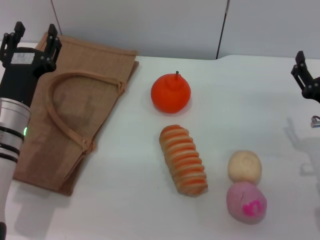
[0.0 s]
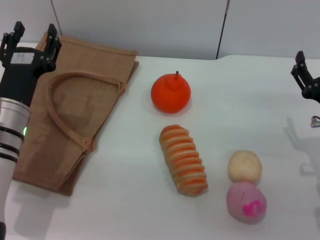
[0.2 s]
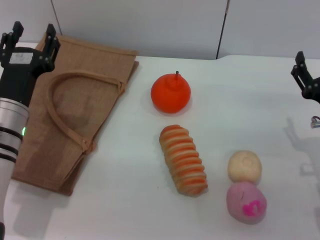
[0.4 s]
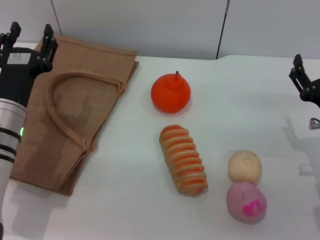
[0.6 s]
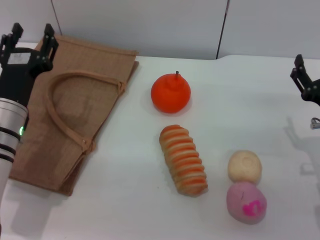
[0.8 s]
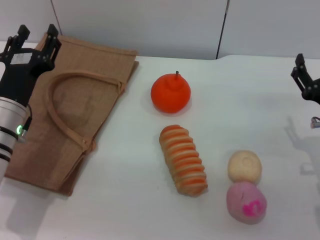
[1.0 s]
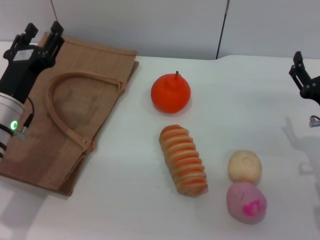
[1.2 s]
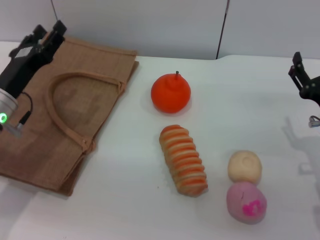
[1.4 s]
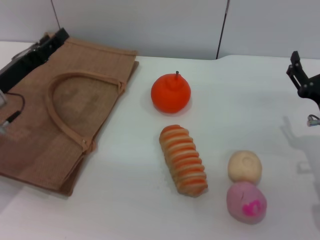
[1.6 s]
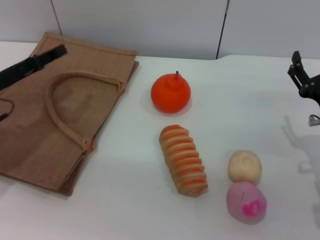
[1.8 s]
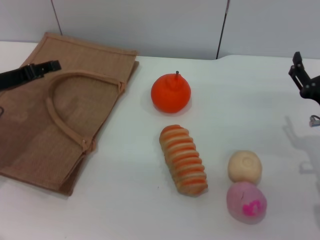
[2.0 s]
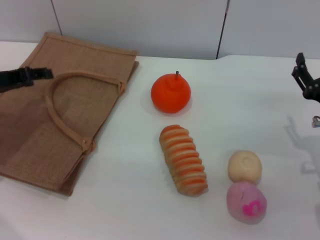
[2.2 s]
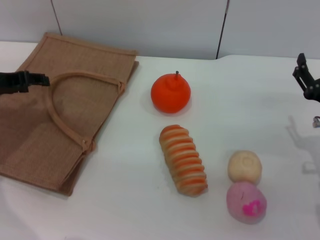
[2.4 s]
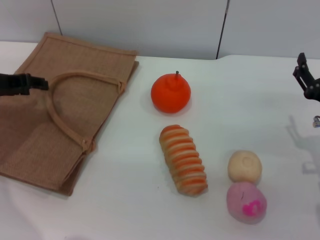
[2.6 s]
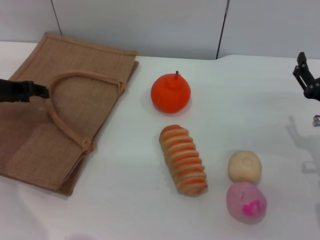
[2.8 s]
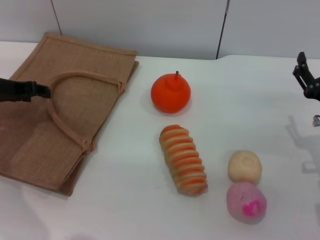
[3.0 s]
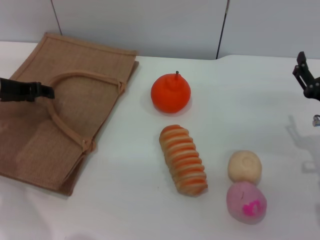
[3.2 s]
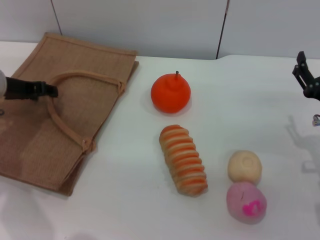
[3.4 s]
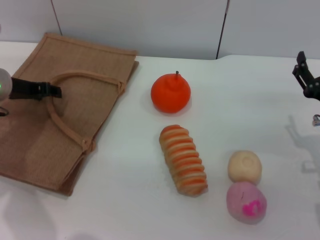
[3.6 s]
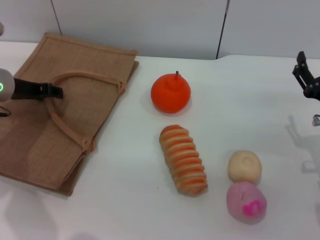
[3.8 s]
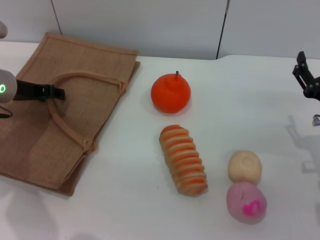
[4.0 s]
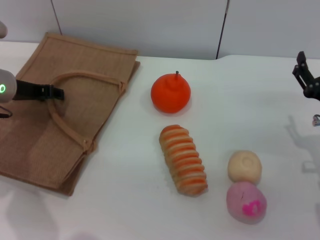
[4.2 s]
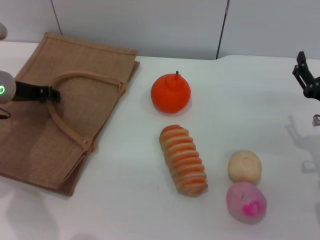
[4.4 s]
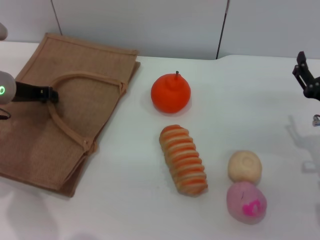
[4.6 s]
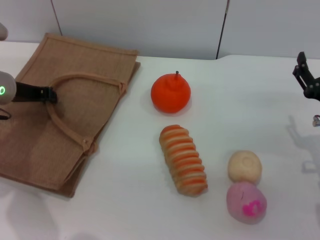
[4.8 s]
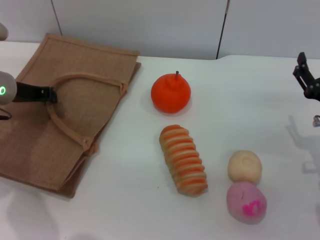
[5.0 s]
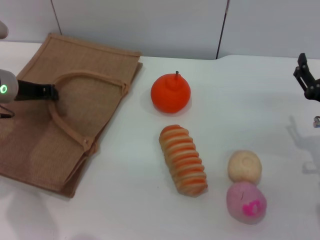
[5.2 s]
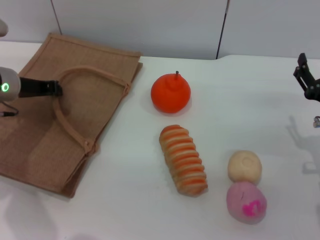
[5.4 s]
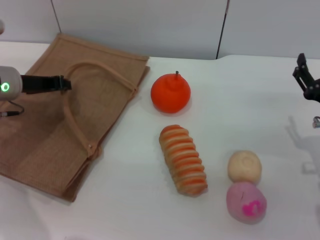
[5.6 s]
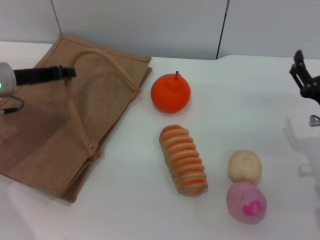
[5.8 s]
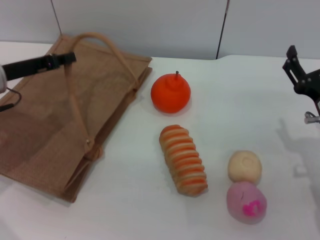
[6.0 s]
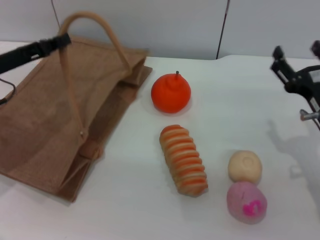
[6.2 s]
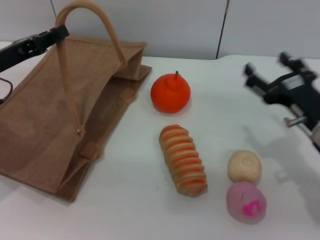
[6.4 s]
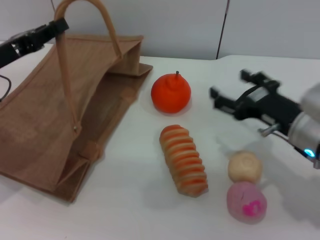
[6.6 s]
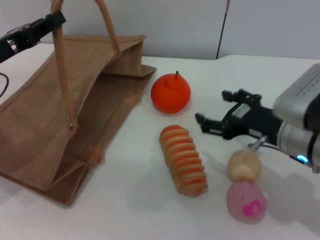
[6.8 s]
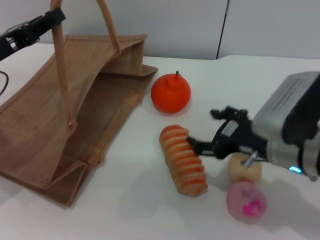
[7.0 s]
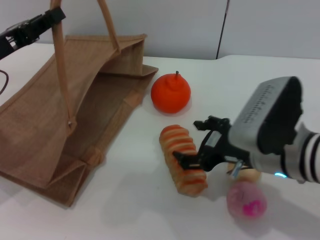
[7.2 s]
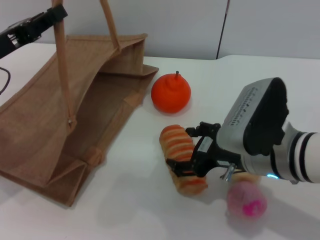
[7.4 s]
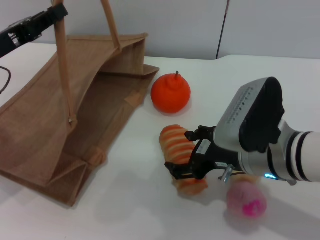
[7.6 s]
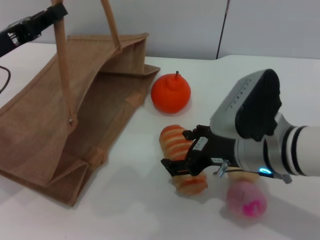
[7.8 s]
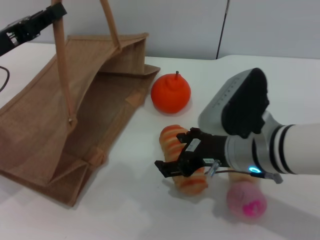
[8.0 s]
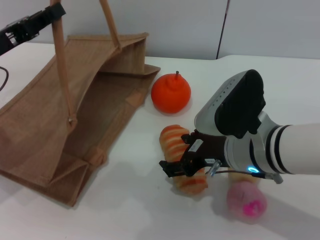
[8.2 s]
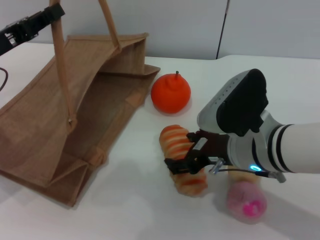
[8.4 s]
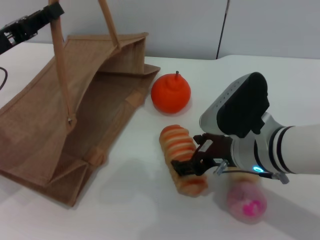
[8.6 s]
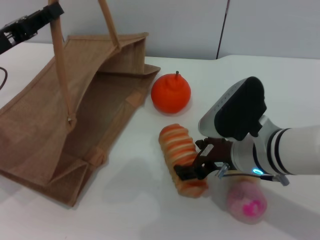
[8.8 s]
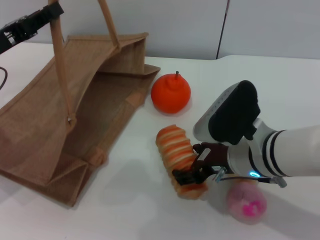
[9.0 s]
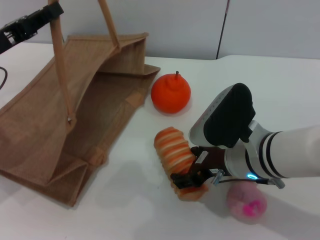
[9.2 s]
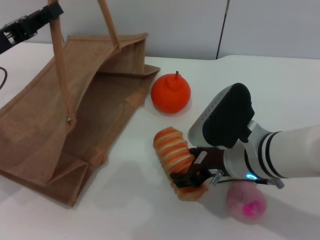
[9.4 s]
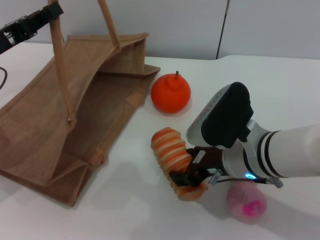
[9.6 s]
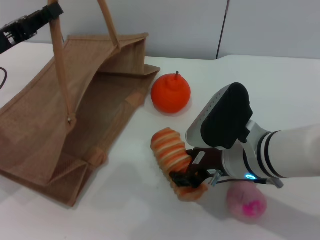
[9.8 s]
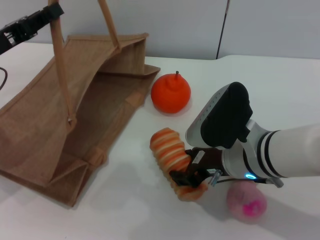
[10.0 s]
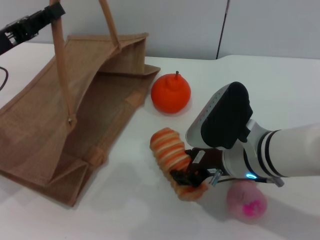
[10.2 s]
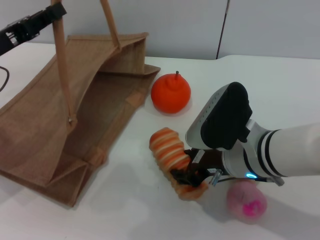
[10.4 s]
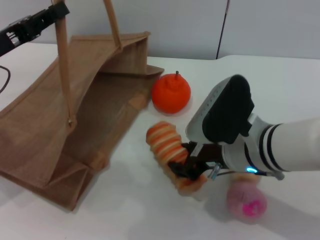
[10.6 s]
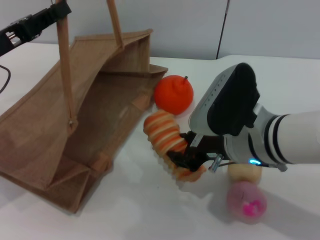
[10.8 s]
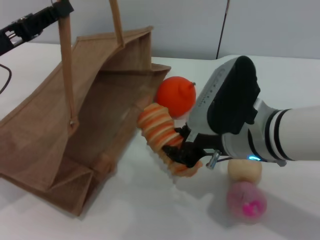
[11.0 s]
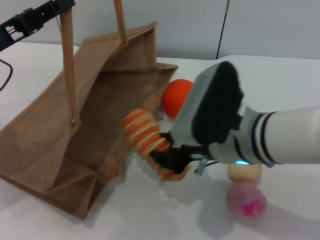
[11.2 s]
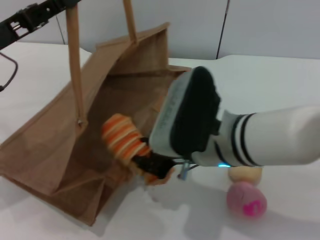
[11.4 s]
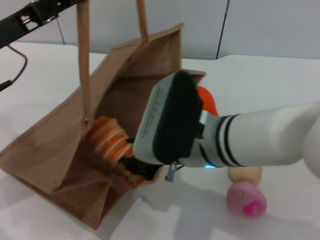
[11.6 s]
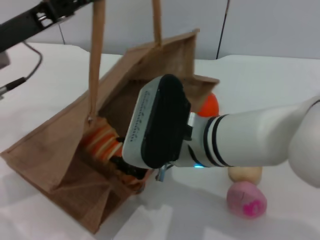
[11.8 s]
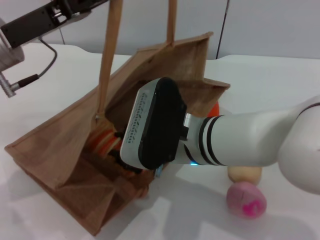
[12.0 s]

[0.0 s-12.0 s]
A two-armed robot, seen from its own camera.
Task of the whole recording: pick up the bread from the table and place it in the brown handbag.
Step, 0.0 to 5.8 s: Lift the woven bag with the left gripper to open it.
Step, 6.0 to 11.0 s: Pick up the bread with the right gripper.
0.0 to 1.6 s: The left gripper heads to the left, covering some 5 cm.
1.6 to 3.0 s: The left gripper goes approximately 5 cm forward.
3.0 to 4.4 s: The grippers stay close to where they were, moving slightly.
4.4 to 6.0 s: The left gripper closes up.
6.0 to 7.6 s: The right gripper is displaced to the left and upward by about 10 cm.
7.6 to 9.0 s: The grippers make only small movements.
9.0 to 10.4 s: The right gripper closes up.
10.4 to 12.0 s: The left gripper heads to the right, covering some 5 cm, while the right gripper moves to the left, roughly 10 cm, and closes up.

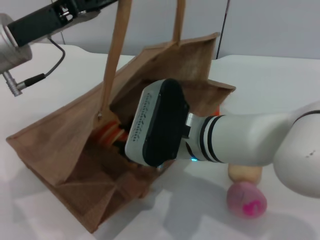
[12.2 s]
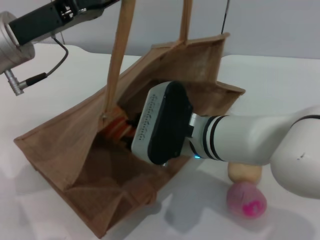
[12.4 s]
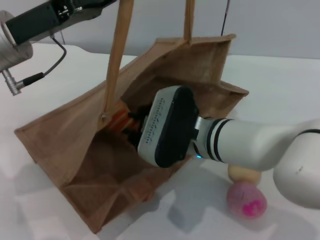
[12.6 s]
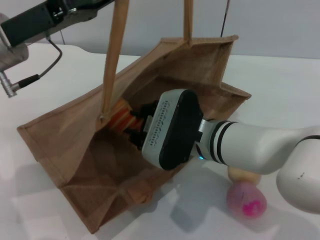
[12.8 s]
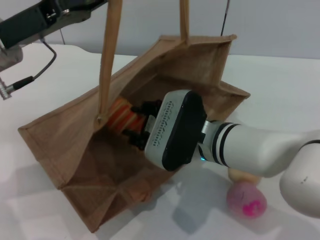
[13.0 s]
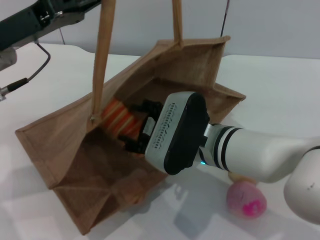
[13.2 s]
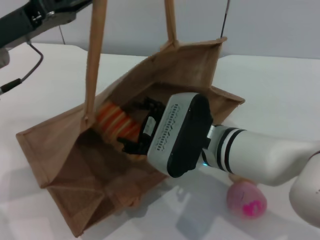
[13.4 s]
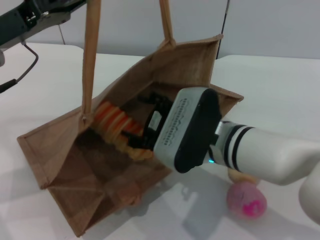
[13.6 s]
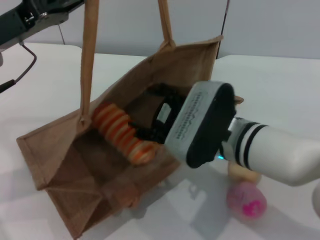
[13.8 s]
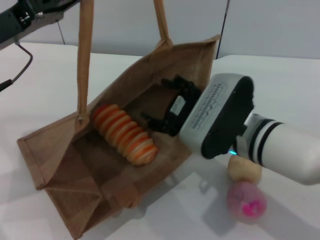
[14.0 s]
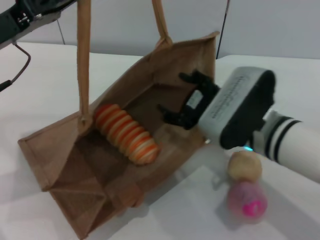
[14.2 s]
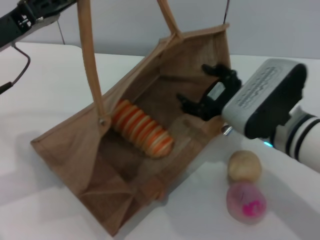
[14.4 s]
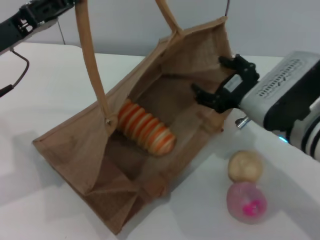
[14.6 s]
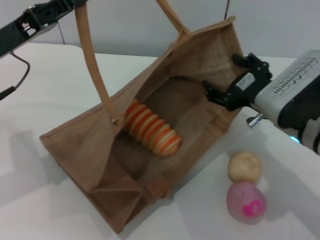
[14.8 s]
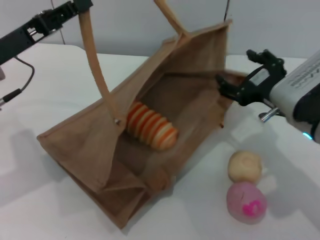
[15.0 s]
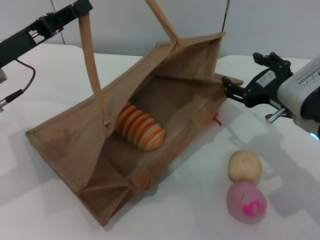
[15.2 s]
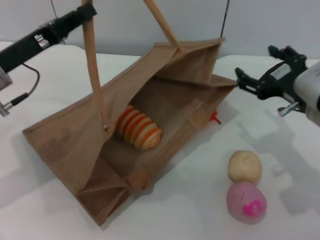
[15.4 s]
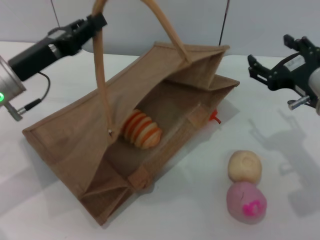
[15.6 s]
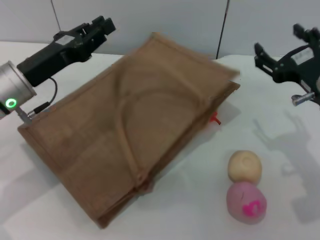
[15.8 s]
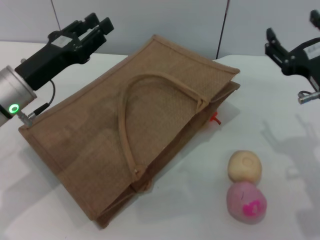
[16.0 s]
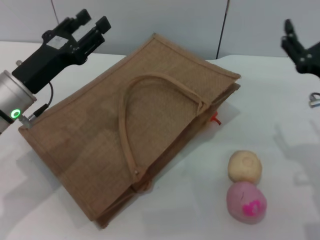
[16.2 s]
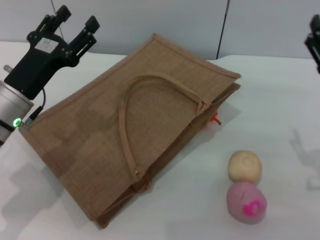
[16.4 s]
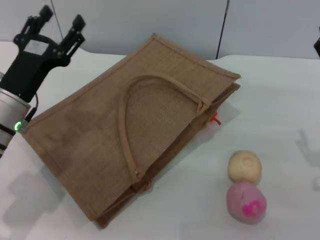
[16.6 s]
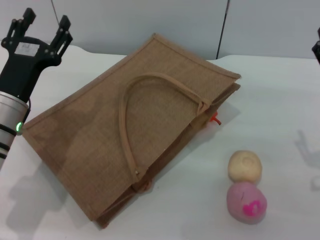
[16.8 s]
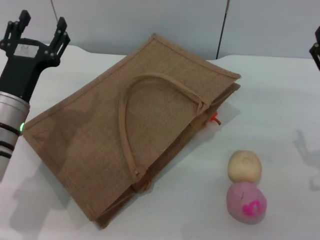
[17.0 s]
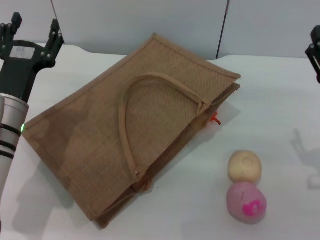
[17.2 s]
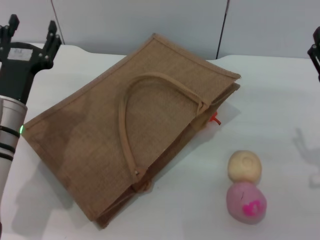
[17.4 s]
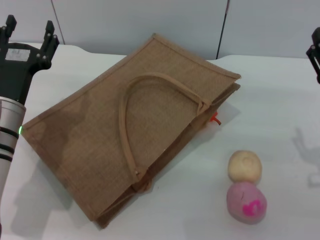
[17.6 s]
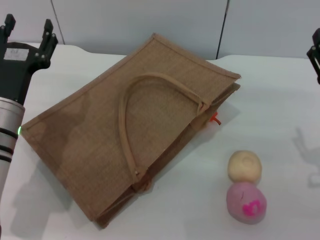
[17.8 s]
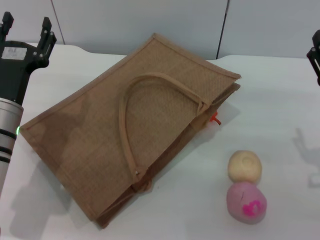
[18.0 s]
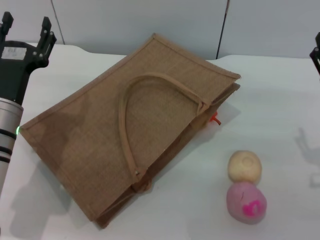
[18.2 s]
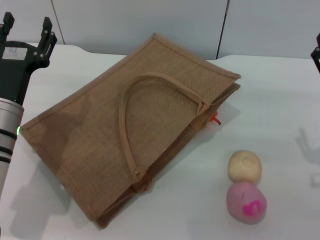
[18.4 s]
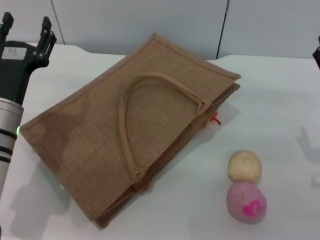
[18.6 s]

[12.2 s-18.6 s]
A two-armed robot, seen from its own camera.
Task of the whole recording: pick up the bread from the table and place it in the brown handbag.
Step, 12.2 to 15.0 s: Place the bread into the woven bag with the right gripper.
Step, 15.2 to 16.0 s: Lower the woven bag with the left gripper to close it.
12.2 to 13.8 s: The right gripper opens its fingers.
13.8 to 15.4 s: The right gripper heads to the right, covering some 15 cm.
15.4 to 17.0 s: The two grippers go roughly 5 cm downward. The left gripper opens.
17.0 to 18.6 s: The grippers move only a little.

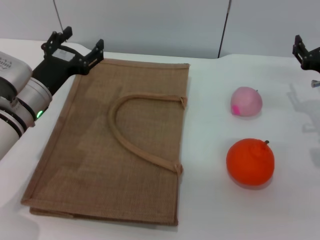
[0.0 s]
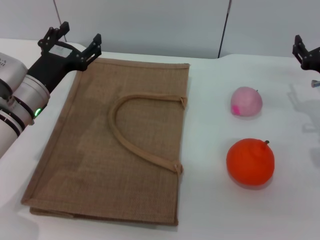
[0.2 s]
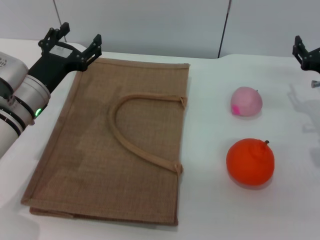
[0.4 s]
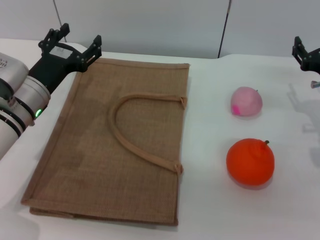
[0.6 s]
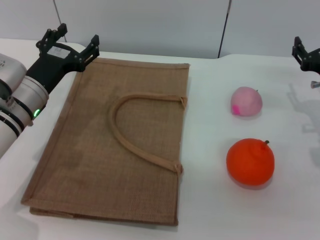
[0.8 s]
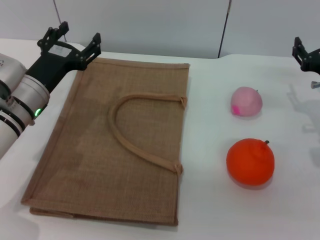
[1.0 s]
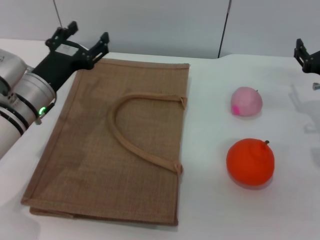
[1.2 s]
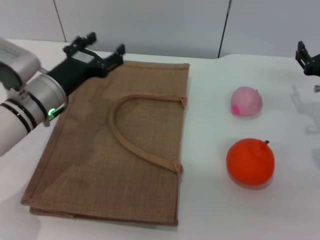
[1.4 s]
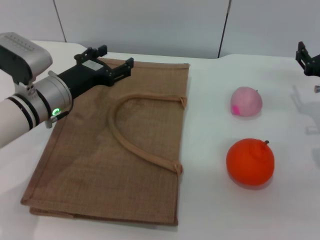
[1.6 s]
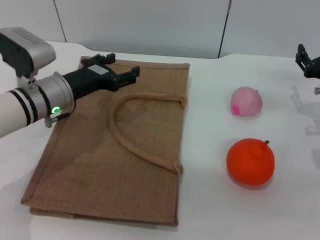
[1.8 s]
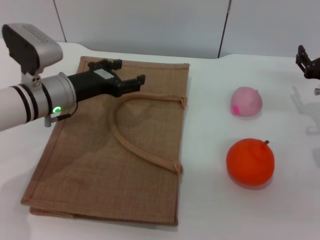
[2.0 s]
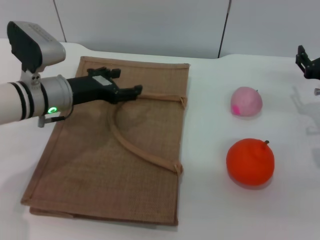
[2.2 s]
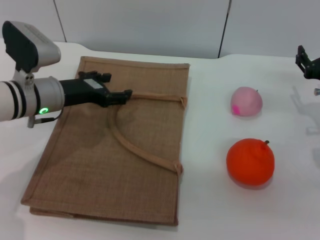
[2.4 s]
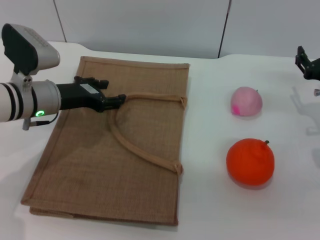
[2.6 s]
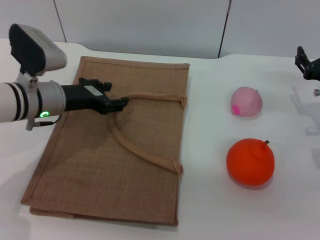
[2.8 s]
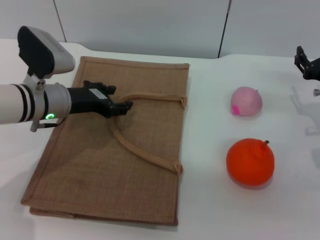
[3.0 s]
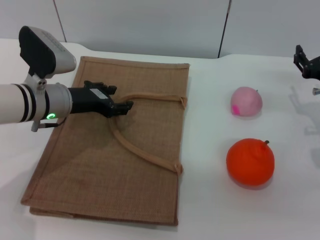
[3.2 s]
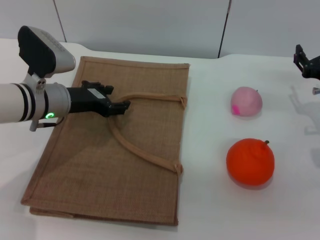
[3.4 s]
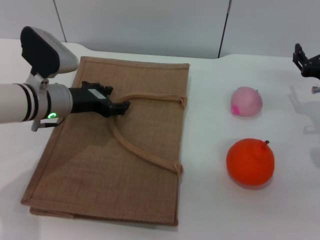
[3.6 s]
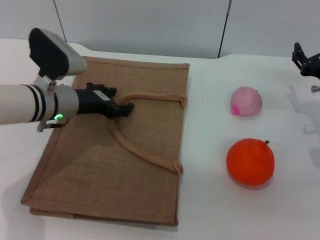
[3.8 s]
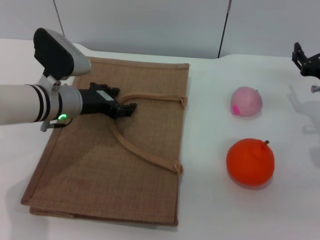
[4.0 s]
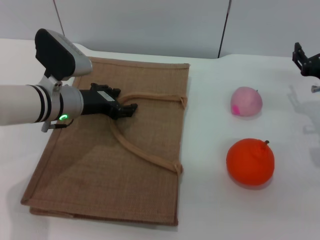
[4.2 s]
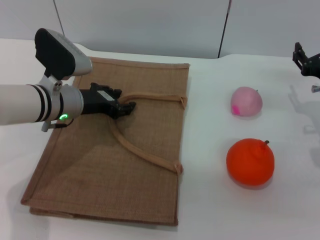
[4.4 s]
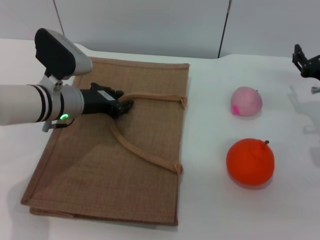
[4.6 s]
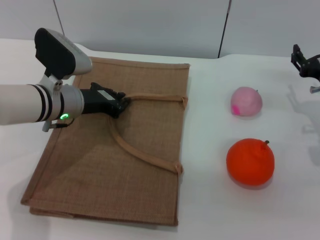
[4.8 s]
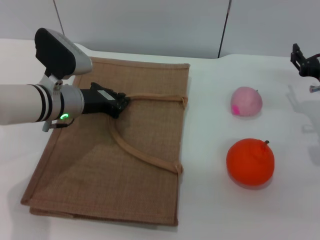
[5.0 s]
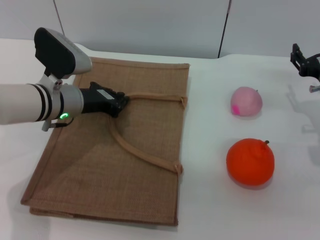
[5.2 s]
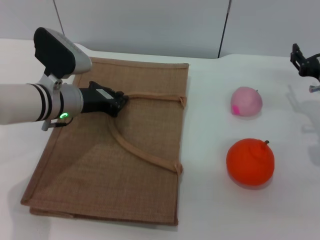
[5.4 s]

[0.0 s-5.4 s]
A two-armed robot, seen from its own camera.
Task of the whole recording: pick up the orange and peach from the table and place it in the brown handbag.
0.0 to 1.4 s: There are only small adjustments of the grippers.
2.8 to 4.0 s: There are only small adjustments of the grippers.
4.0 to 5.4 s: The left gripper closes up.
